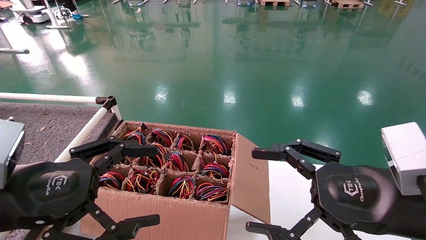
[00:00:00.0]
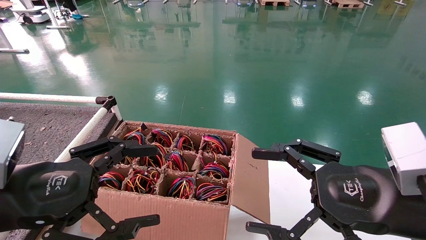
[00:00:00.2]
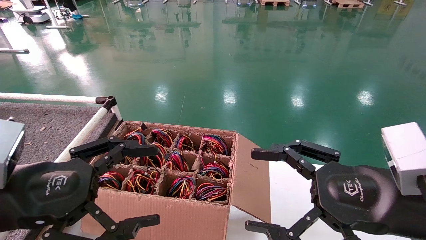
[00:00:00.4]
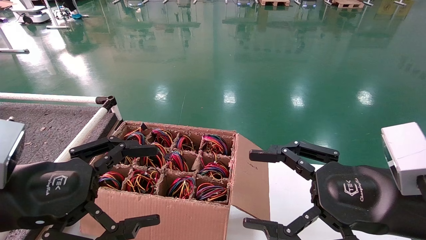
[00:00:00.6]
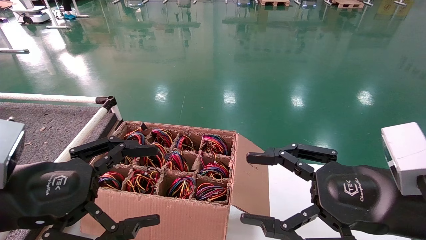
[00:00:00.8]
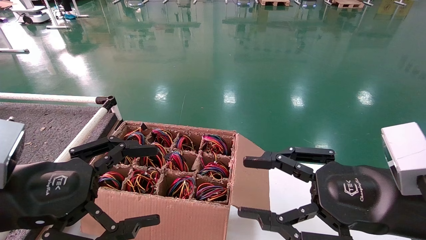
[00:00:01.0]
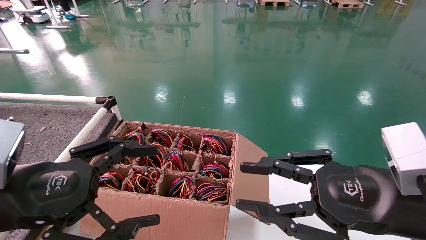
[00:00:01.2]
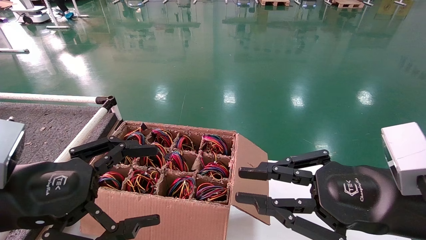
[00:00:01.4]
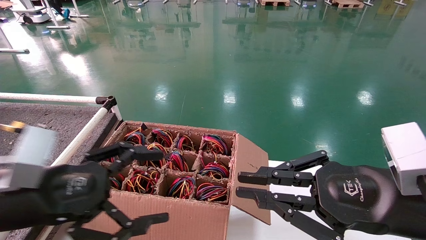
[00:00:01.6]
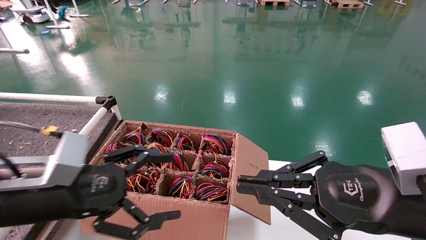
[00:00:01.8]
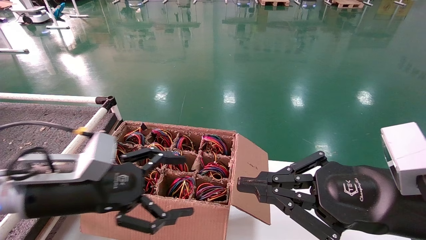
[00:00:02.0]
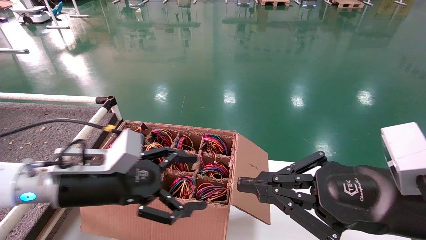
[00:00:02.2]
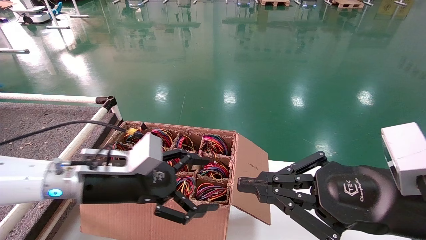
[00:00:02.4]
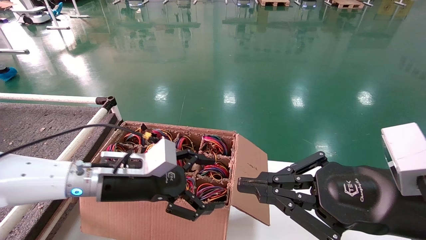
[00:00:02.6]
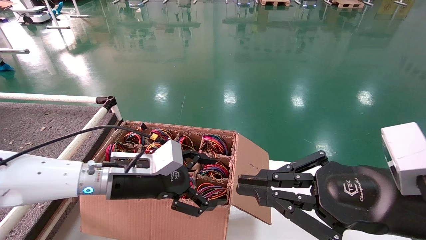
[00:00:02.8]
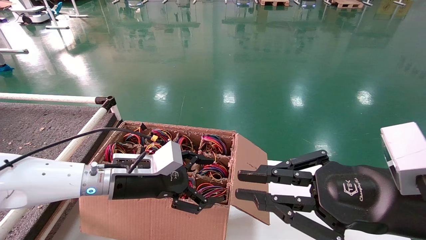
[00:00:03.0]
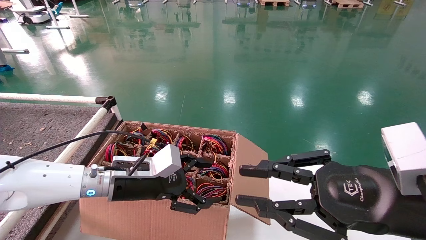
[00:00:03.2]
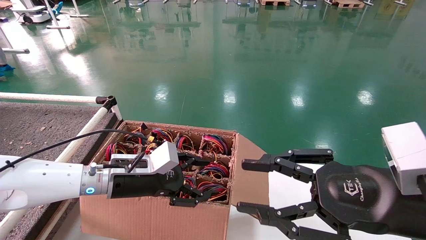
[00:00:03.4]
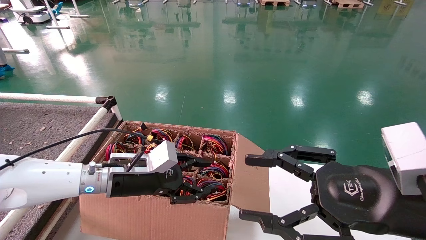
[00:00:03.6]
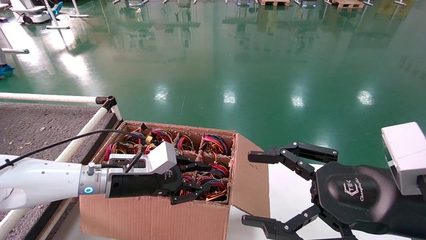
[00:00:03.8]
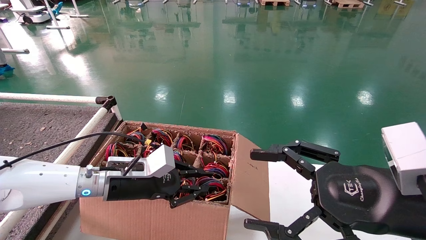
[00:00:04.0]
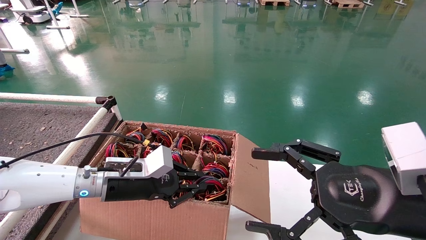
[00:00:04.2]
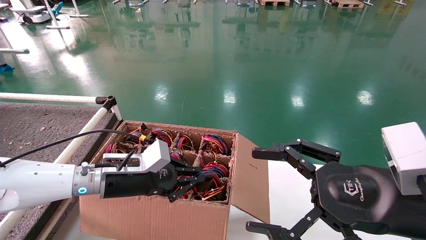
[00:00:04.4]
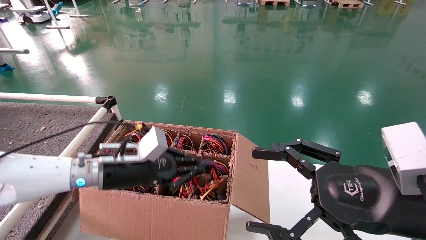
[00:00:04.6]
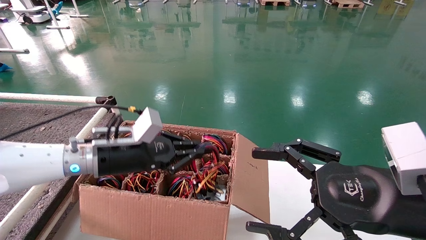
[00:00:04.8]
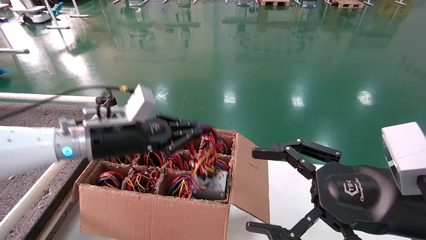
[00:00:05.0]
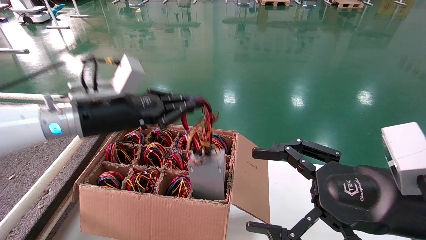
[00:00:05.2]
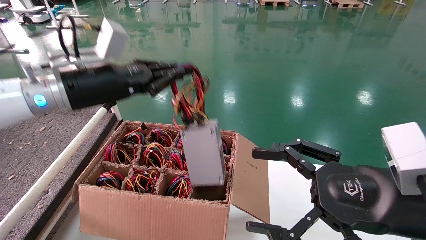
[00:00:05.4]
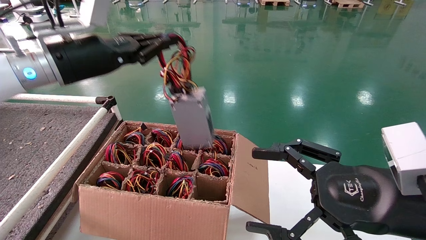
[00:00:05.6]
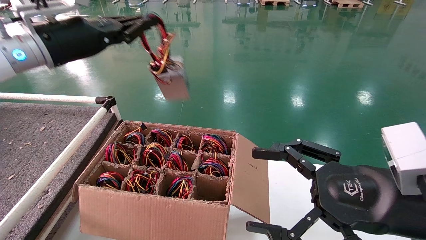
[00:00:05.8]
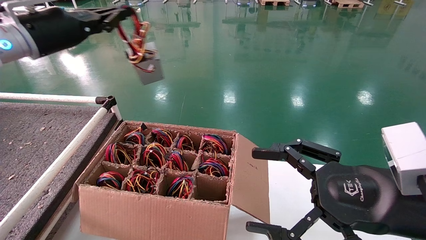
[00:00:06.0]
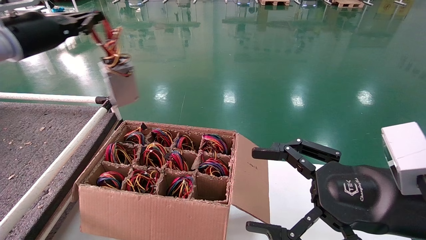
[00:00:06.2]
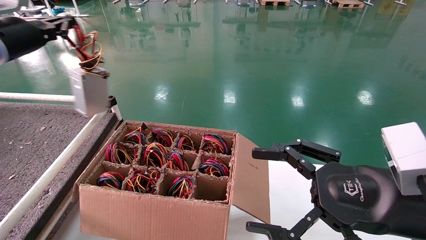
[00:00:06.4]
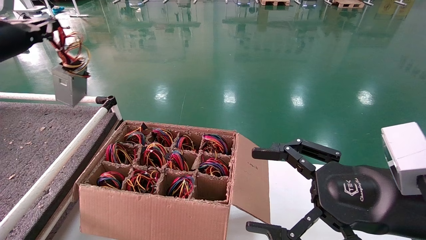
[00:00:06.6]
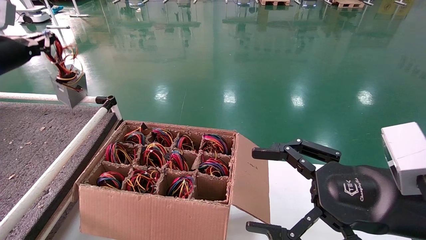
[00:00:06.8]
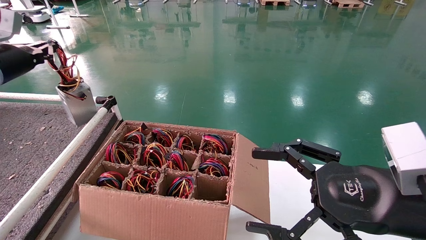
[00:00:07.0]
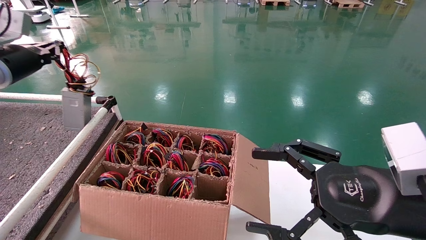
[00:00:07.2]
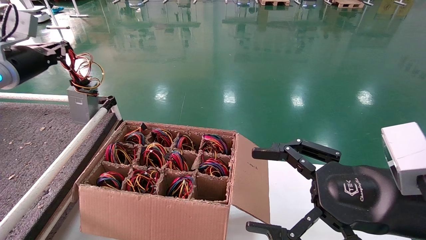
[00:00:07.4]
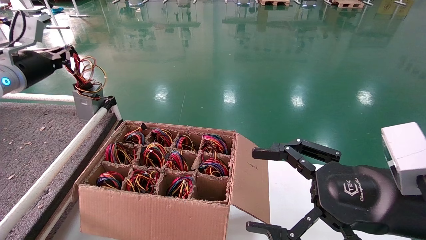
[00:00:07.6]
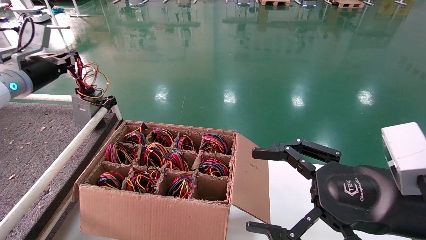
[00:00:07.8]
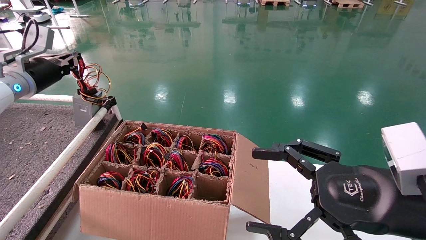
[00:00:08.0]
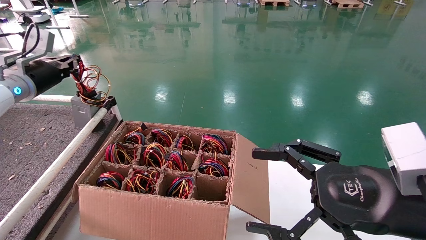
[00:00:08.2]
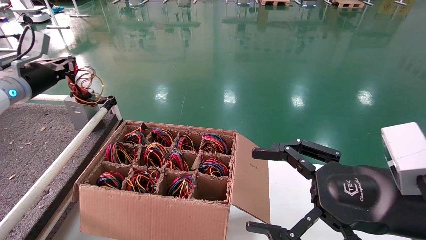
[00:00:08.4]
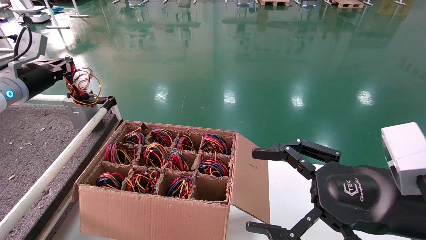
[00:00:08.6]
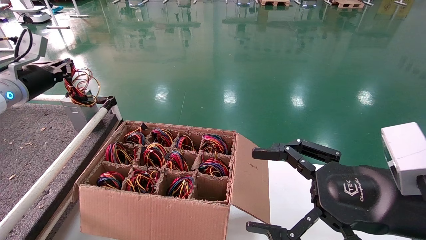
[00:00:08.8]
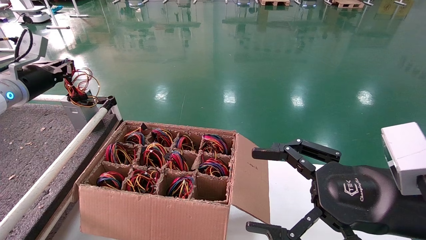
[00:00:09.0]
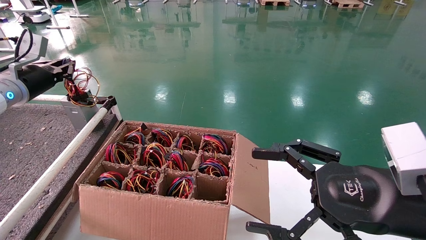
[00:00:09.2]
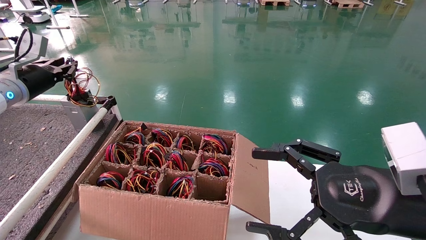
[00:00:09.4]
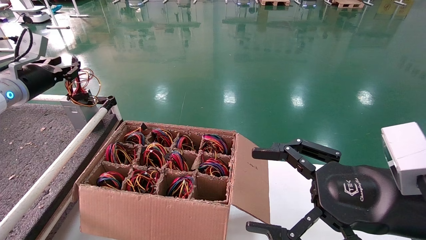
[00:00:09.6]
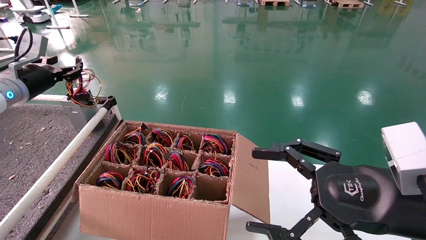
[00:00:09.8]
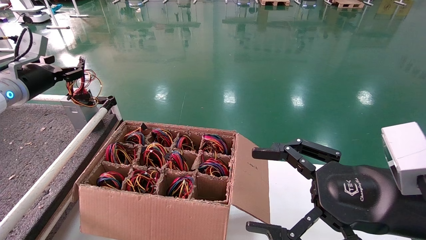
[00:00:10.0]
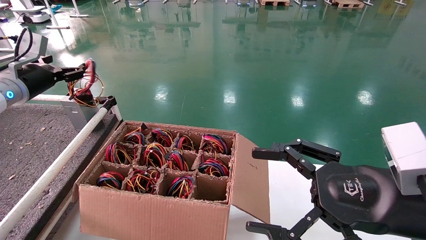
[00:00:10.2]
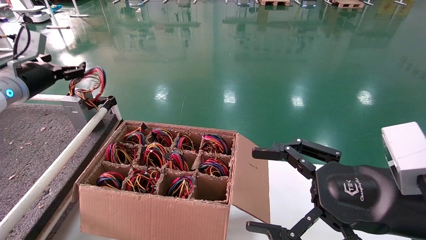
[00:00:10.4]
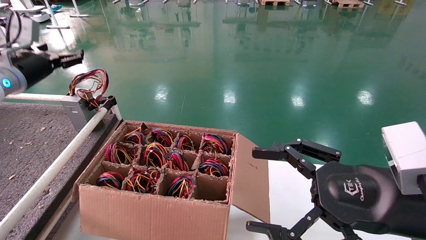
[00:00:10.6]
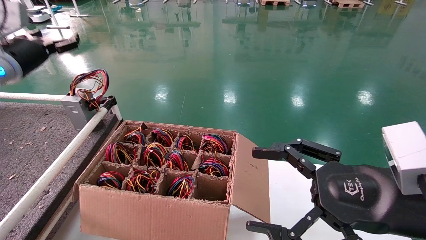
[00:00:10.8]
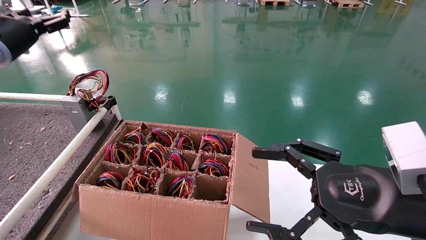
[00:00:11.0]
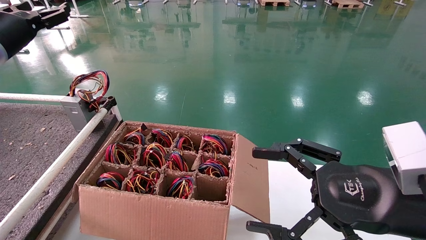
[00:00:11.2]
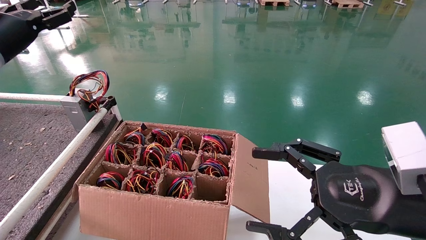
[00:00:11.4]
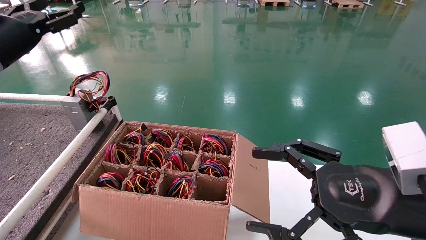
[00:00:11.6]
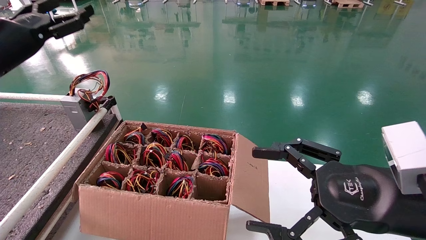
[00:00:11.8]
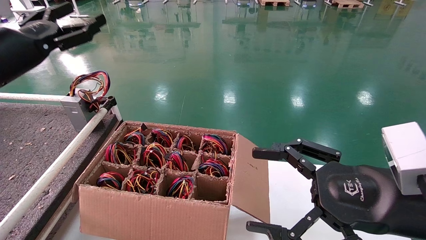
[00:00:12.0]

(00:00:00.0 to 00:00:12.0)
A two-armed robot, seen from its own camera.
Step, 00:00:01.8 - 00:00:04.6: Grab and lift the power supply from the large box.
Step, 00:00:04.8 - 00:00:09.8: Place the power supply on the operating table.
00:00:00.0 - 00:00:01.6: The right gripper closes up.
00:00:01.6 - 00:00:03.0: The left gripper shifts some 20 cm forward, to the right and downward.
00:00:03.0 - 00:00:04.4: The left gripper closes up. Meanwhile the right gripper opens up.
00:00:04.4 - 00:00:06.0: The left gripper travels upward and to the left by approximately 30 cm.
00:00:06.0 - 00:00:07.6: The left gripper moves to the left and downward, approximately 10 cm.
00:00:07.6 - 00:00:09.0: The grippers move only a little.
00:00:09.0 - 00:00:10.4: The left gripper opens its fingers.
00:00:10.4 - 00:00:12.0: The left gripper travels backward and to the right by approximately 10 cm.

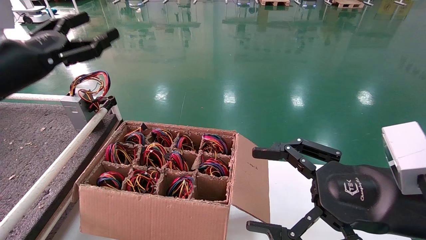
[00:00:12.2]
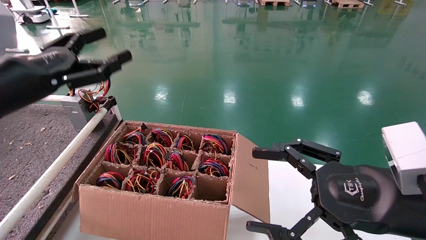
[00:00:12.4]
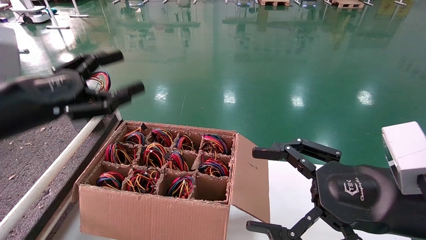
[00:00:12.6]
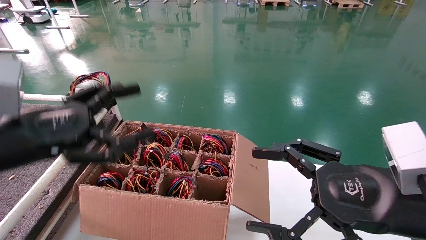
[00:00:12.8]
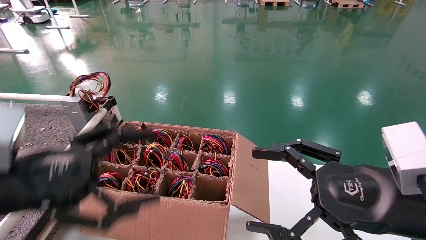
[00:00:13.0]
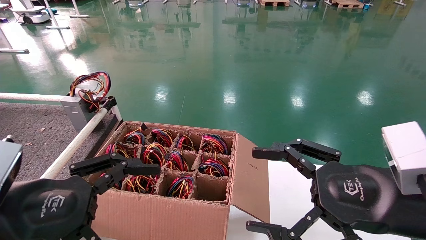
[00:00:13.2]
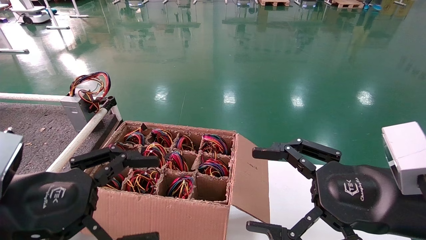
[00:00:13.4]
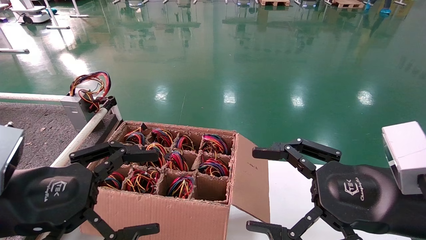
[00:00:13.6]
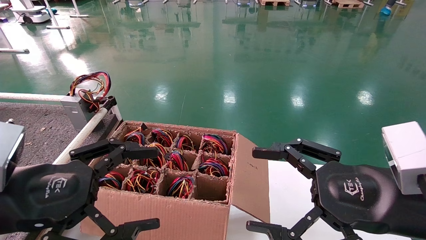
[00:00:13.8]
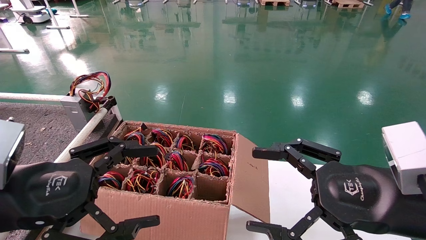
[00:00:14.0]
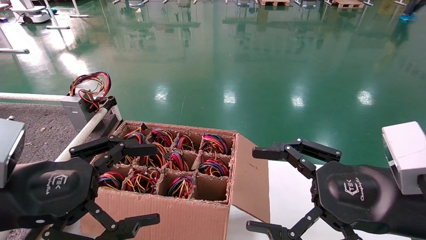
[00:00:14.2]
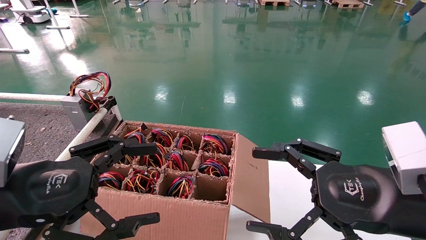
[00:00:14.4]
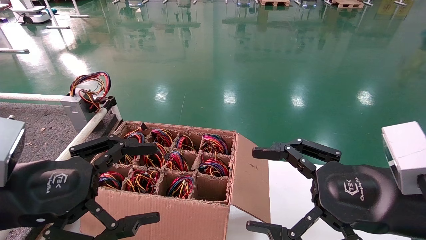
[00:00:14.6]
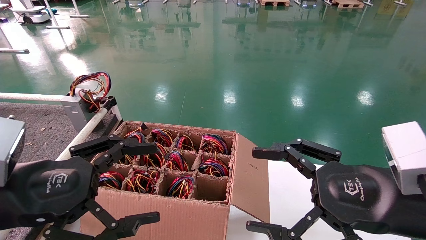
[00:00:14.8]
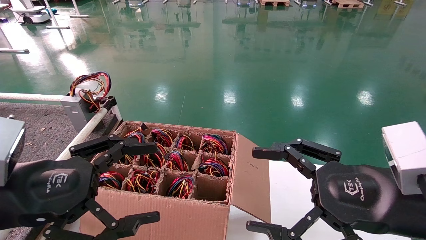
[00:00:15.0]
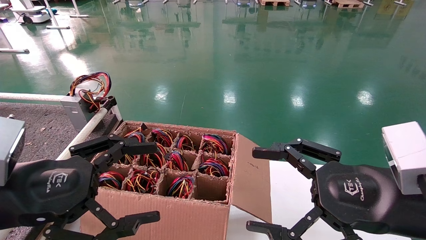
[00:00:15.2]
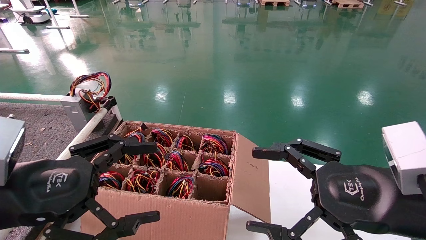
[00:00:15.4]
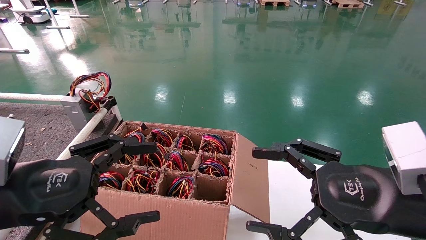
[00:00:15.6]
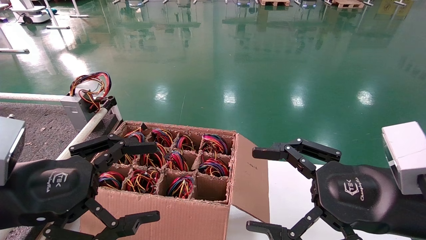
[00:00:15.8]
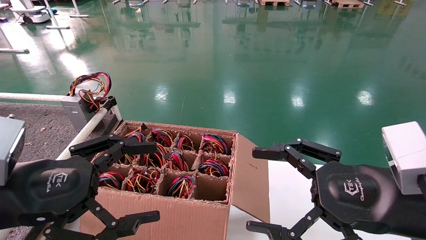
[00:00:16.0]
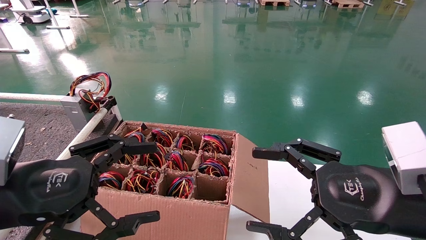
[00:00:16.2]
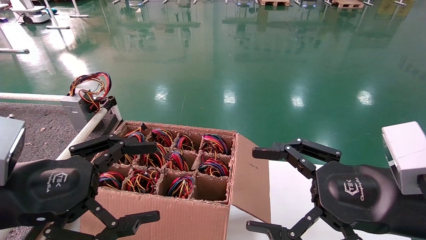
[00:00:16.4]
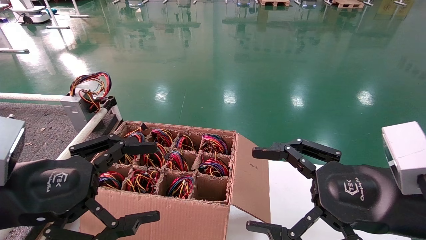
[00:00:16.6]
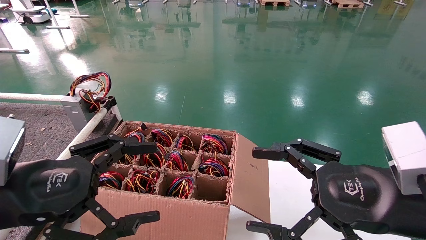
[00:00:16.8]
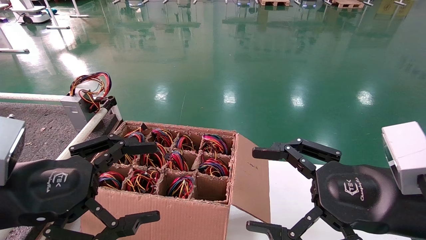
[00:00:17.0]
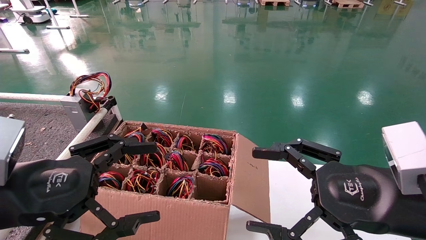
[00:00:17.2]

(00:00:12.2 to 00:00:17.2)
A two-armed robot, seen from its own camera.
00:00:12.2 - 00:00:13.8: The left gripper moves backward, downward and to the right, roughly 20 cm.
00:00:13.8 - 00:00:17.2: Both grippers stay about where they are.
